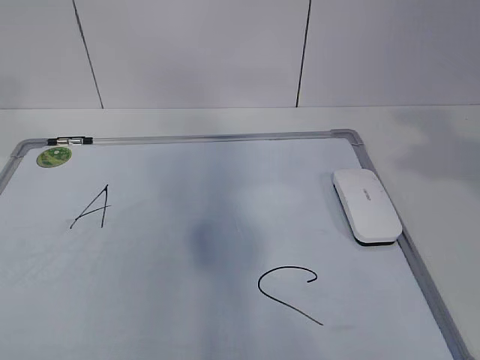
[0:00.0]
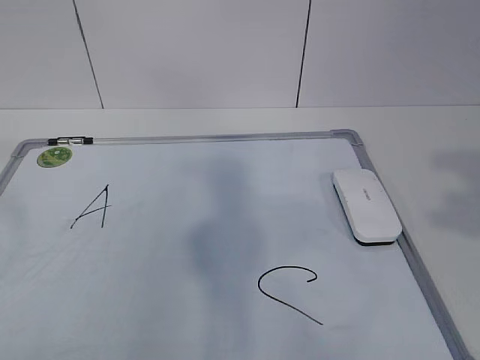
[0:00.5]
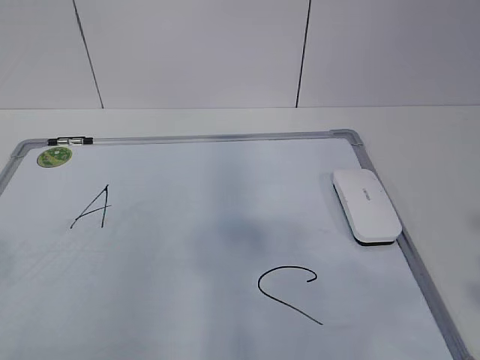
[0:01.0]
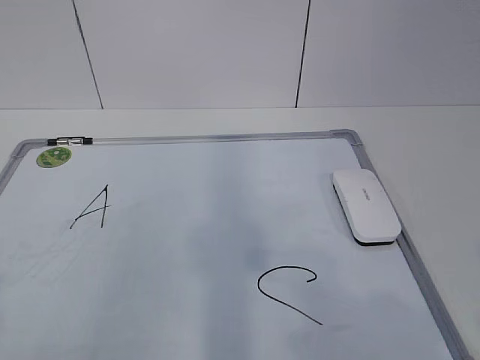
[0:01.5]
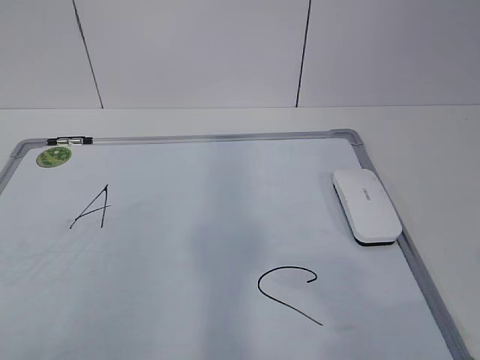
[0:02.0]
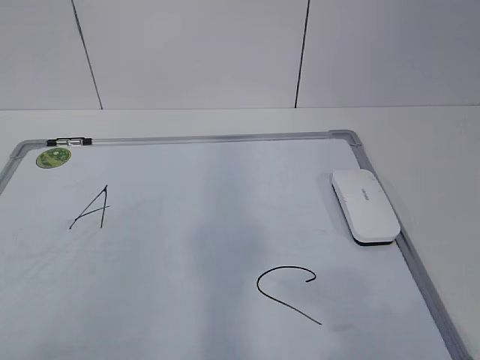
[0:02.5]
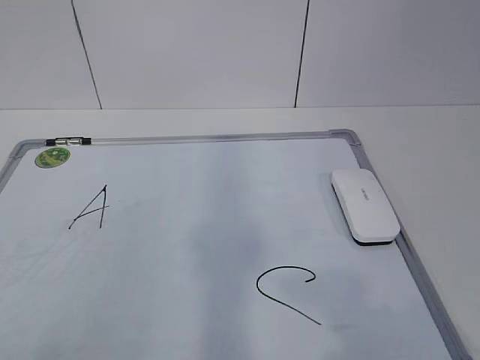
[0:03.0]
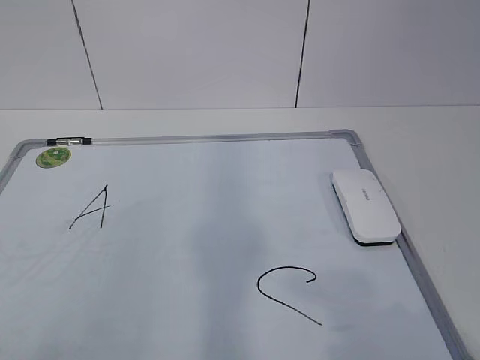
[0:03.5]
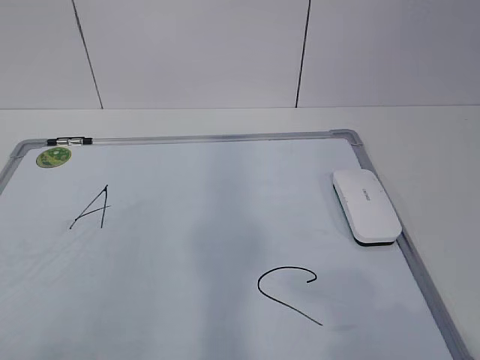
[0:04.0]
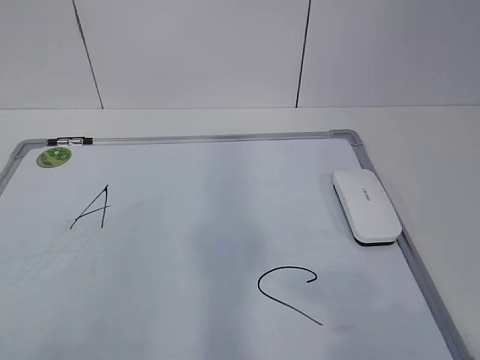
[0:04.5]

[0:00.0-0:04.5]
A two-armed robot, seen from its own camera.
Task of the whole recording: pick up the eraser on the blackboard and erase the letter "B".
0:00.0 to 0:02.0: The left gripper shifts roughly 25 cm backward and downward. The right gripper shifts about 20 cm downward and backward.

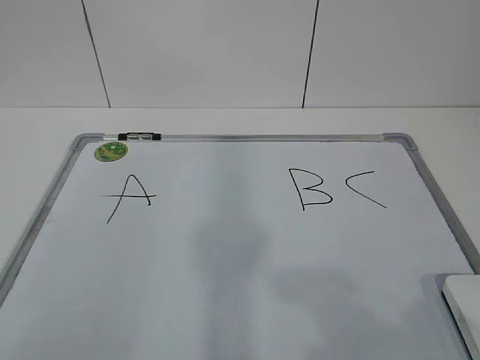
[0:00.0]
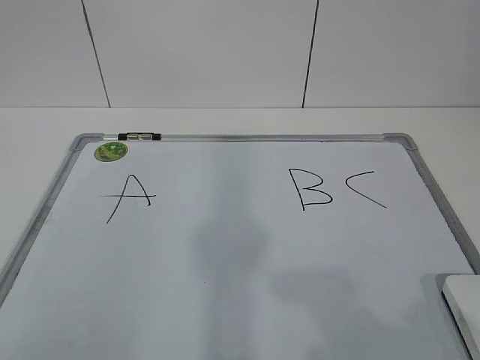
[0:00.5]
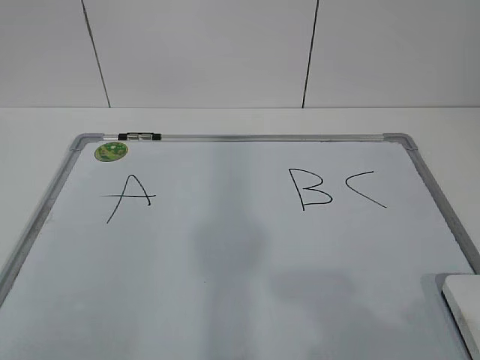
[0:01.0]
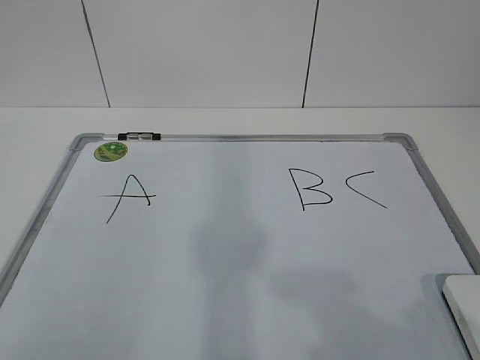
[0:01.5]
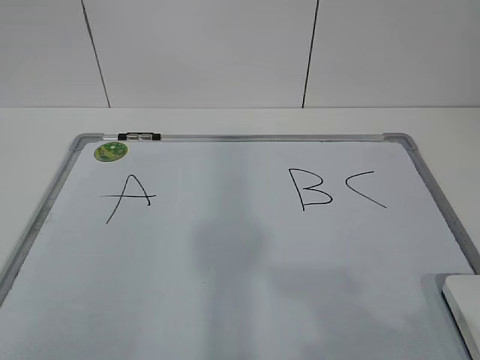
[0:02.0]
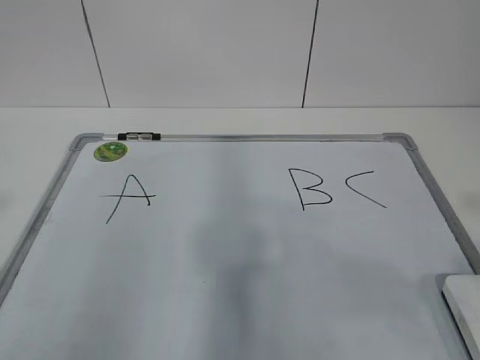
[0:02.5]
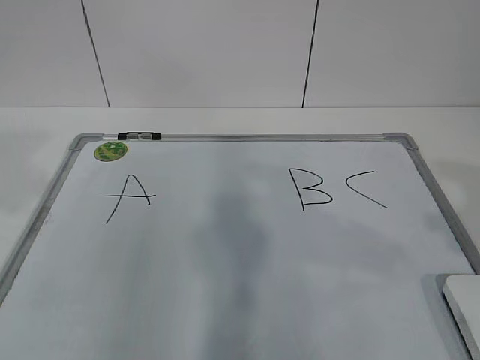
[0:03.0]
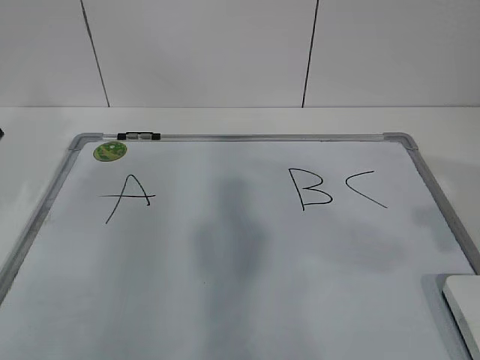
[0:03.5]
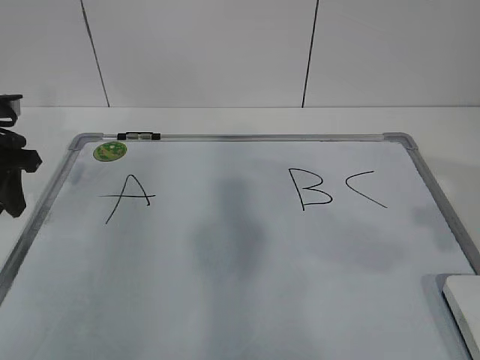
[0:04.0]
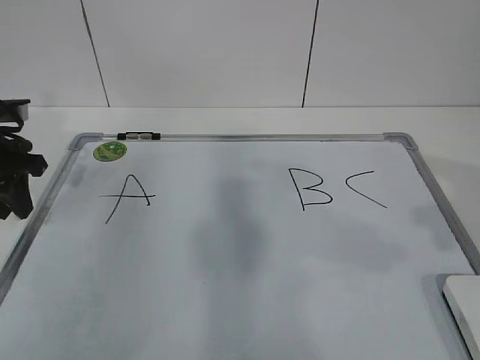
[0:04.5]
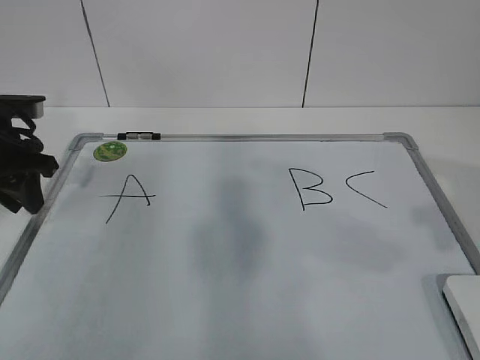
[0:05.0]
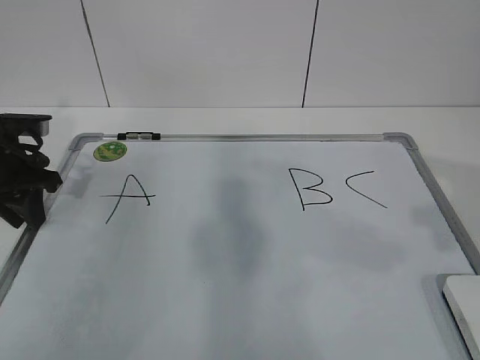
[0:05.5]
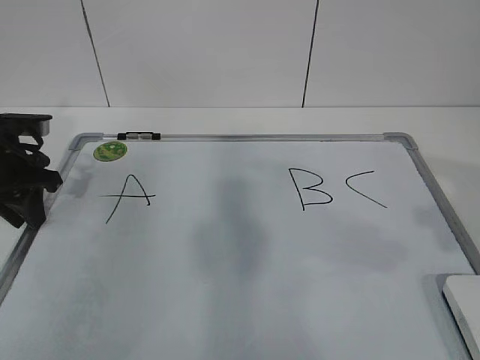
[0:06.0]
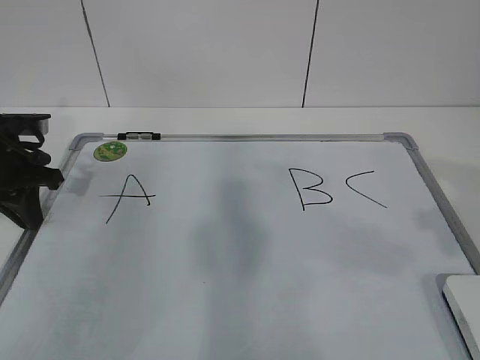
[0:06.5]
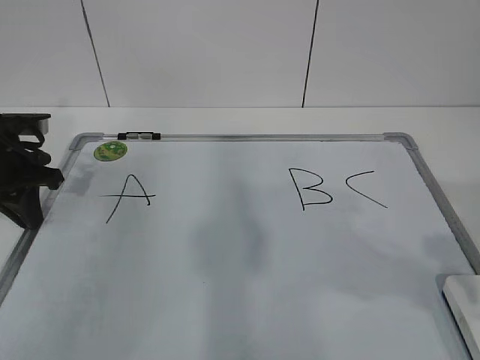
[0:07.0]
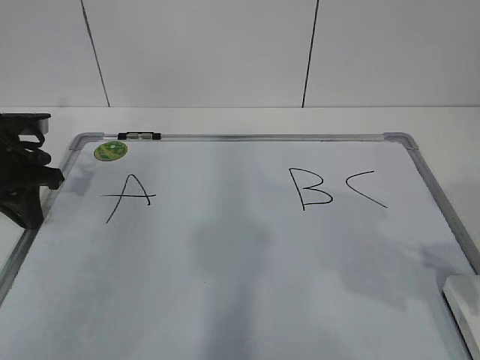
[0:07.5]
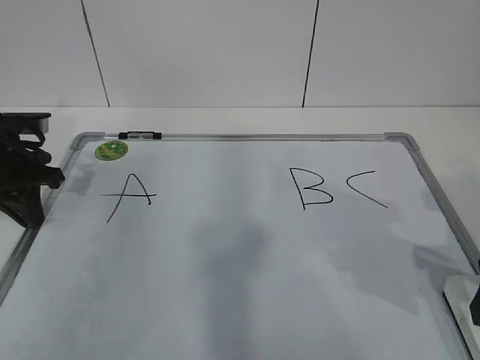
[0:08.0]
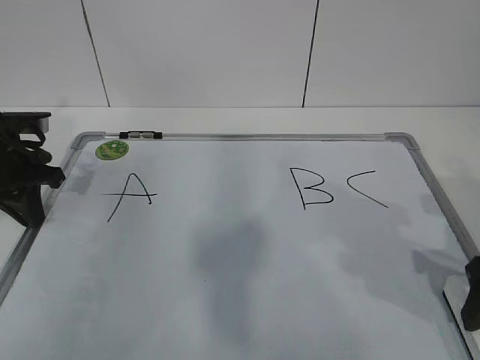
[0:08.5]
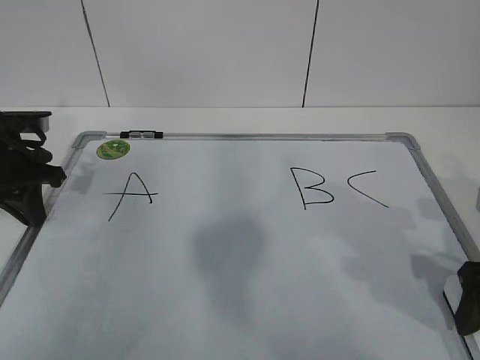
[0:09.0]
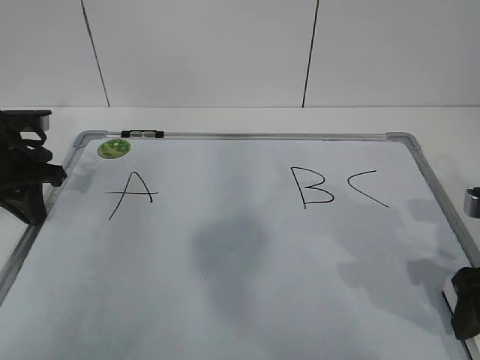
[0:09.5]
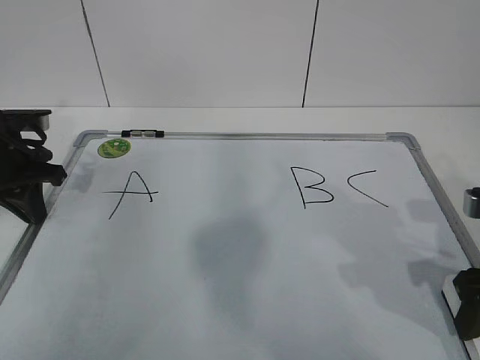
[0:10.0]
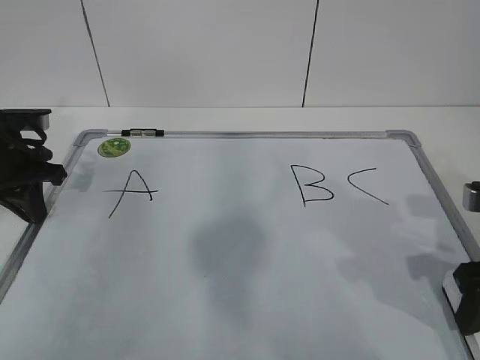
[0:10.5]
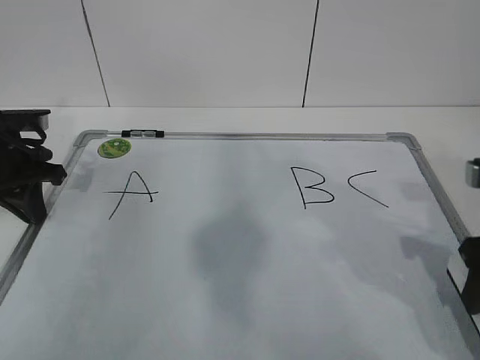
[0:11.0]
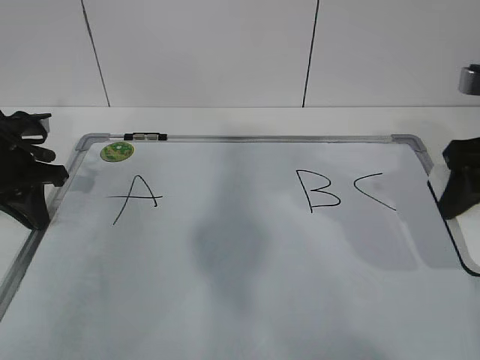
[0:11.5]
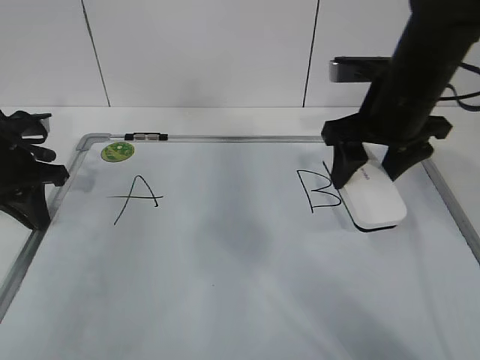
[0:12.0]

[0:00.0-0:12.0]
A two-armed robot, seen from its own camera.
Task of the whole recording: pick up the eraser on the blackboard and erase the letter "B".
Step, 0:00.0 to 0:05.0: Hold the drawing board steady with your left hand.
0:02.0 to 0:04.0: The right gripper moves forward, some 15 cm. The left gripper travels forward by roughly 35 cm.
0:04.0 to 0:06.0: The grippers move only a little.
0:06.0 to 0:08.0: The right gripper moves downward and forward, some 15 cm, and opens, while the left gripper closes its fingers.
0:08.0 to 0:10.0: The right gripper closes up.
0:10.0 to 0:12.0: The right gripper is displaced forward, to the left and upward by about 20 cm.

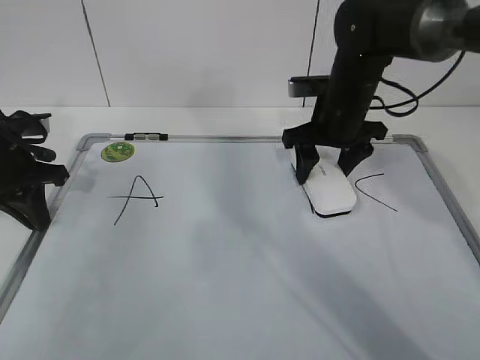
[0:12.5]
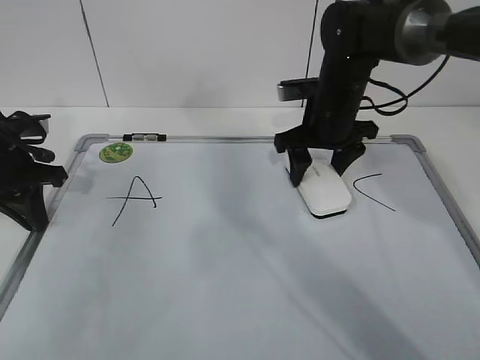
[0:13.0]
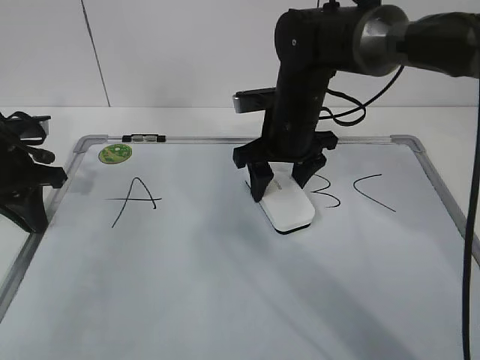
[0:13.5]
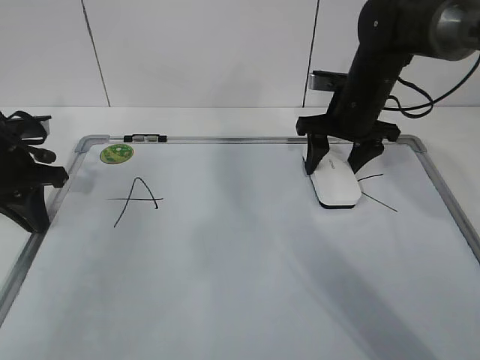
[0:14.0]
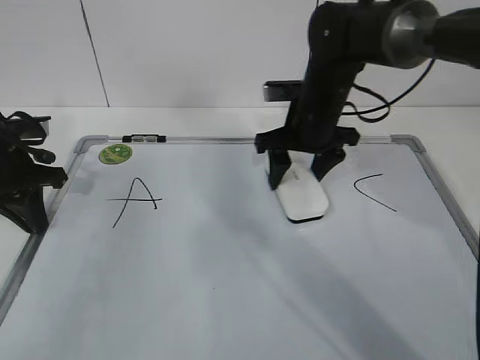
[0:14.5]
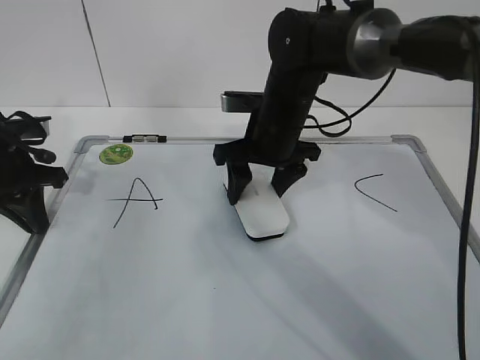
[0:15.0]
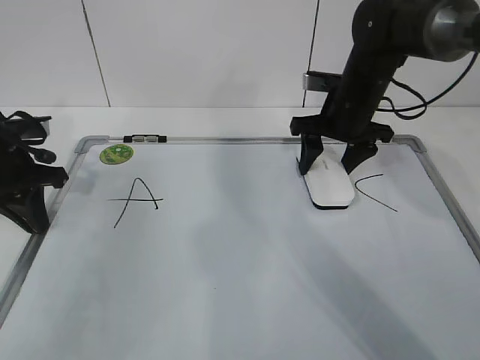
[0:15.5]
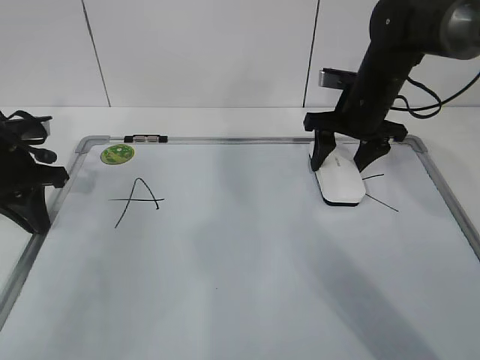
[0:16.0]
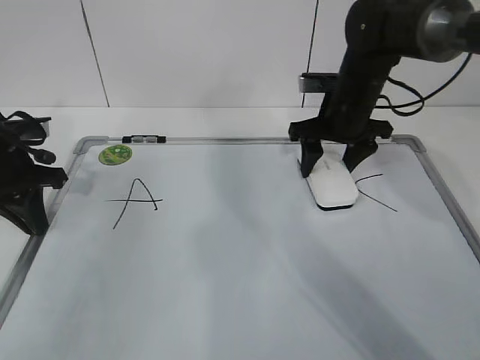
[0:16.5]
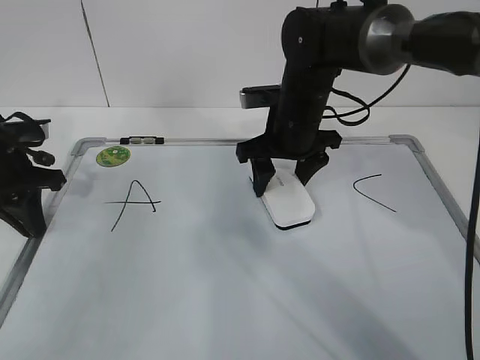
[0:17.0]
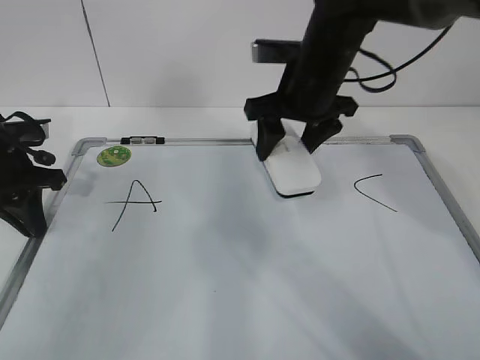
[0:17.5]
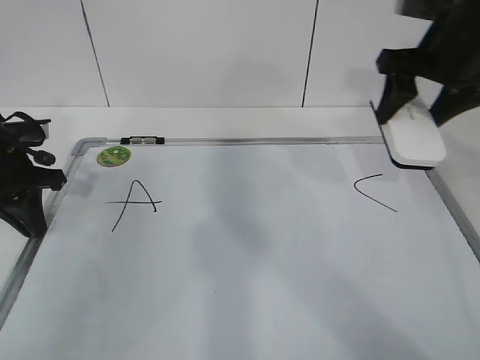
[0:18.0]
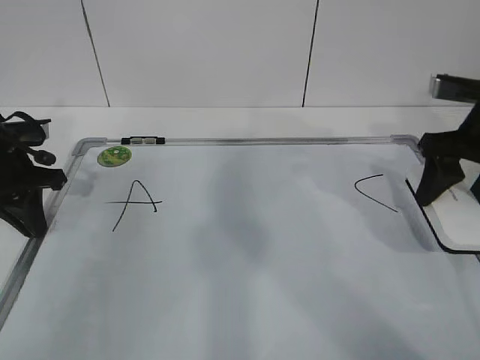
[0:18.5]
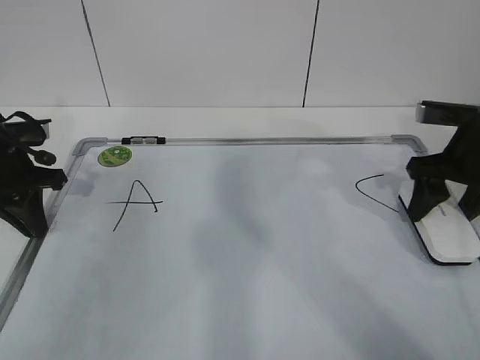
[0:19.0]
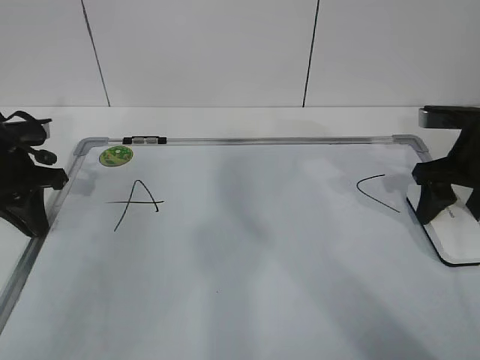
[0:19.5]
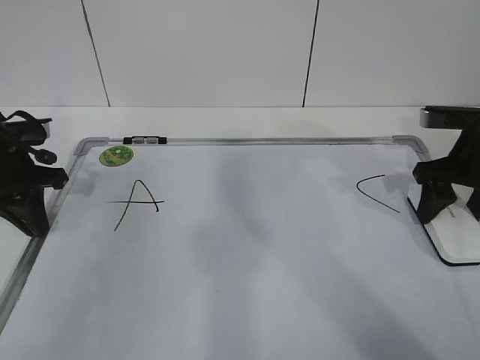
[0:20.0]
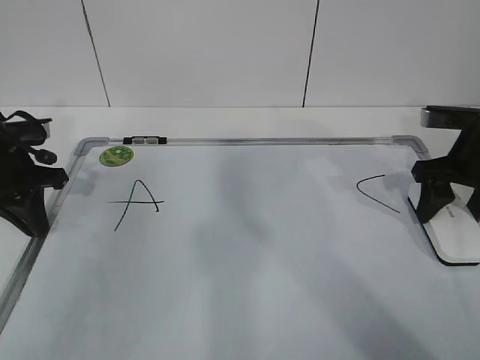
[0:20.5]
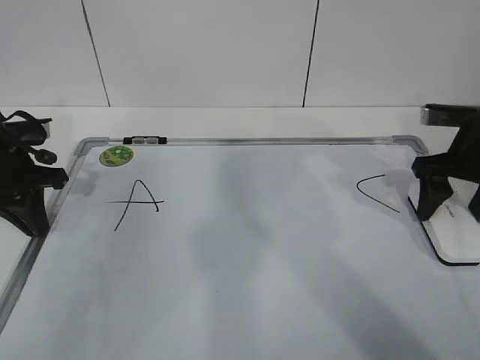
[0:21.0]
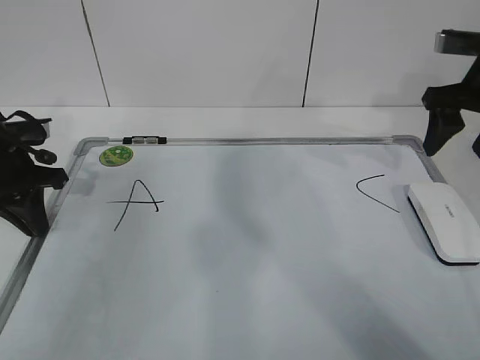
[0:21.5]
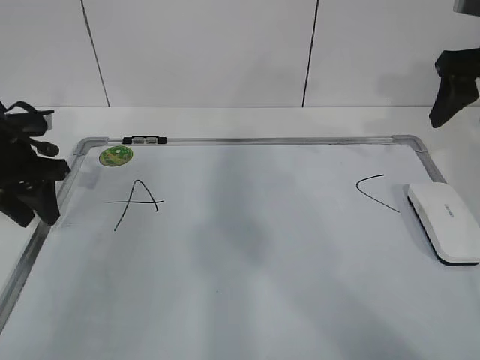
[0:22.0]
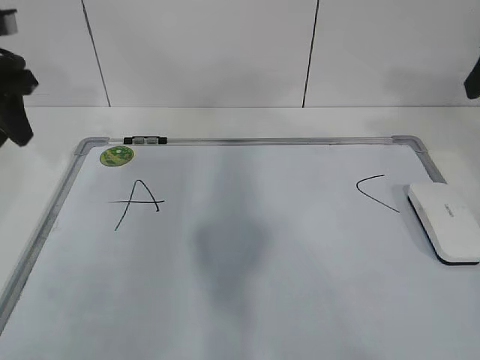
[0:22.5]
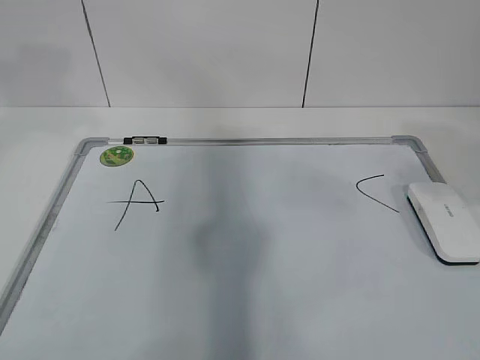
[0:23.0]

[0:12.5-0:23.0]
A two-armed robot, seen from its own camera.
Task of the whole recording: pick up the eraser on the blackboard and erase the letter "B".
Step, 0:14.5 to 0:17.0: Put down the eraser with your right hand.
0:12.5 to 0:14.5: The right gripper goes left and right, about 10 cm each way, reversing 2 times.
0:16.5 to 0:19.0: The right gripper travels to the right and backward by approximately 15 cm.
0:19.0 to 0:21.0: The right gripper opens its fingers.
0:21.0 to 0:23.0: The left gripper heads upward, covering about 25 cm, and opens its fingers, while the right gripper goes some 25 cm backward and upward.
